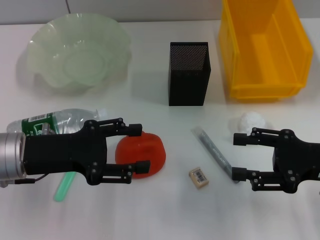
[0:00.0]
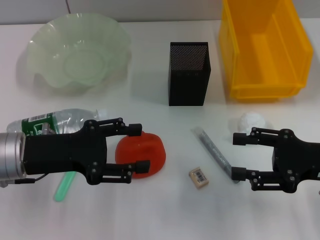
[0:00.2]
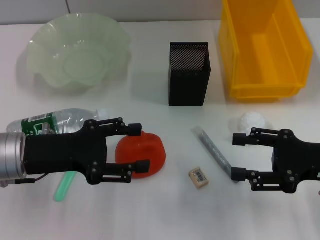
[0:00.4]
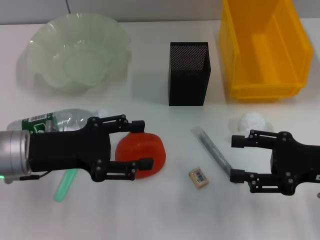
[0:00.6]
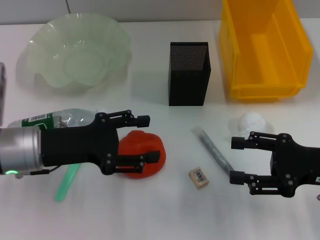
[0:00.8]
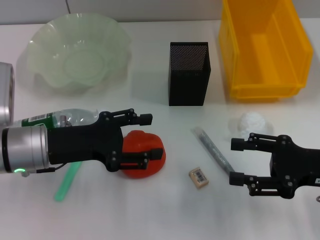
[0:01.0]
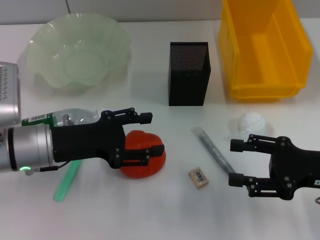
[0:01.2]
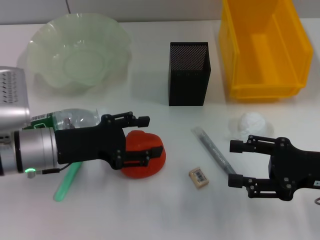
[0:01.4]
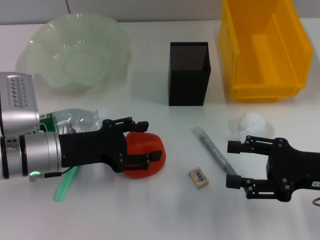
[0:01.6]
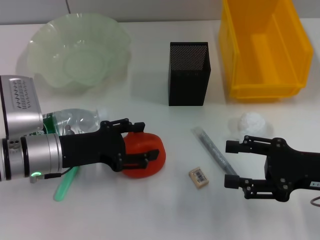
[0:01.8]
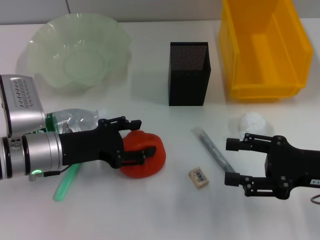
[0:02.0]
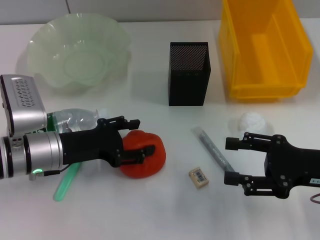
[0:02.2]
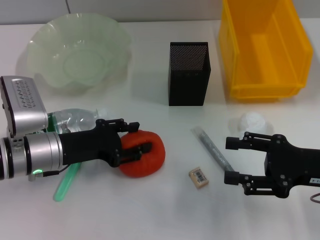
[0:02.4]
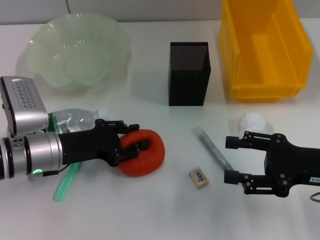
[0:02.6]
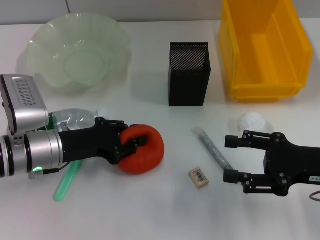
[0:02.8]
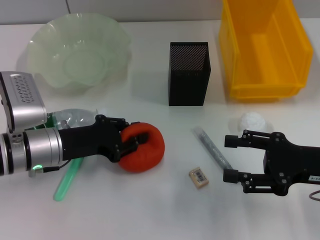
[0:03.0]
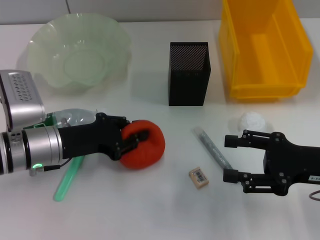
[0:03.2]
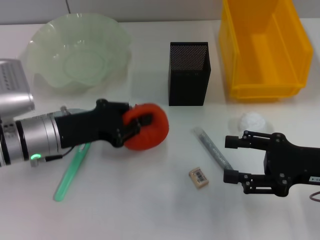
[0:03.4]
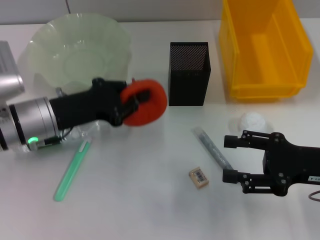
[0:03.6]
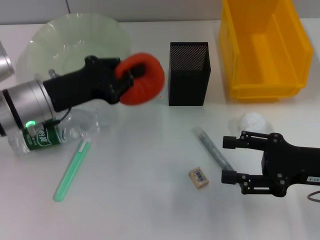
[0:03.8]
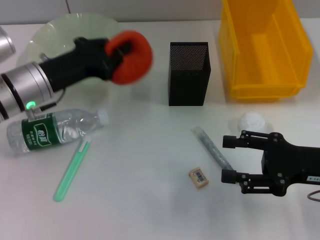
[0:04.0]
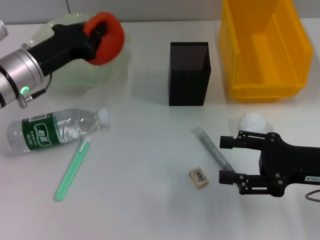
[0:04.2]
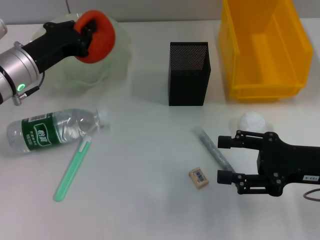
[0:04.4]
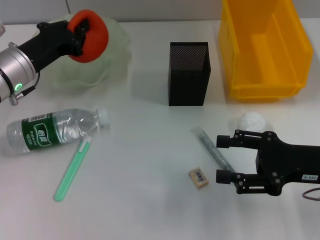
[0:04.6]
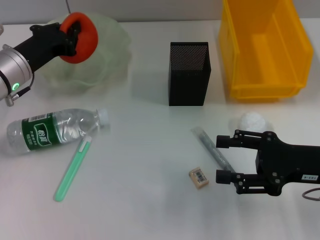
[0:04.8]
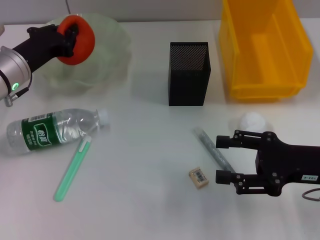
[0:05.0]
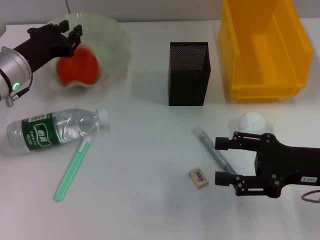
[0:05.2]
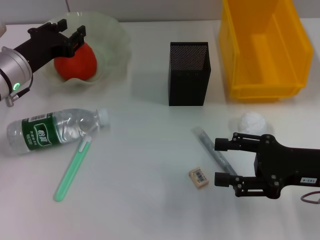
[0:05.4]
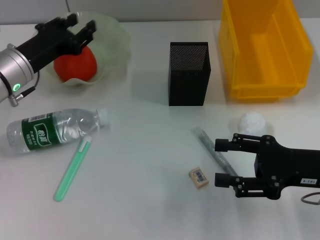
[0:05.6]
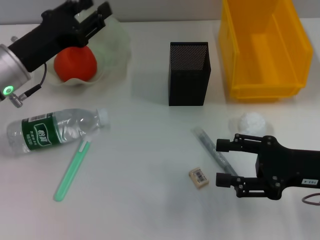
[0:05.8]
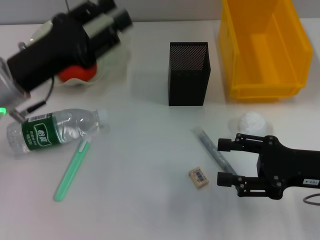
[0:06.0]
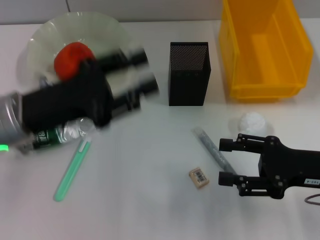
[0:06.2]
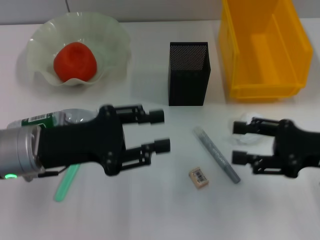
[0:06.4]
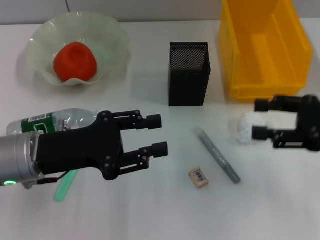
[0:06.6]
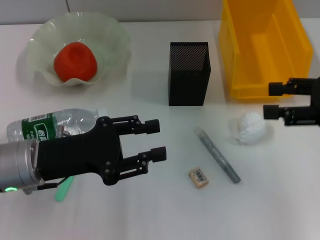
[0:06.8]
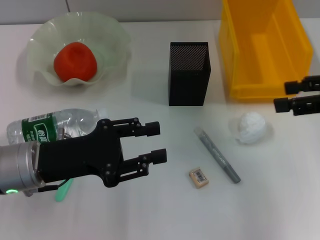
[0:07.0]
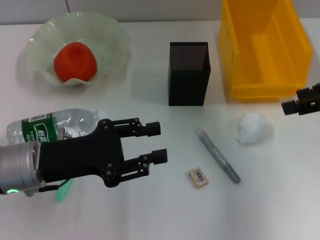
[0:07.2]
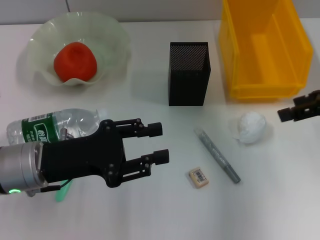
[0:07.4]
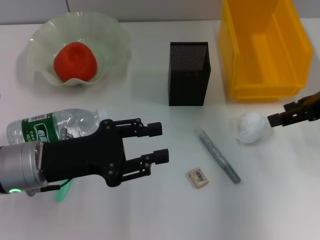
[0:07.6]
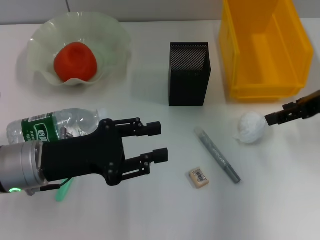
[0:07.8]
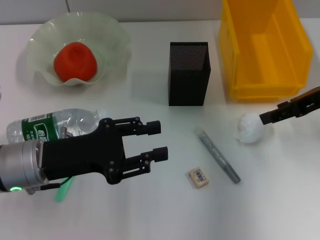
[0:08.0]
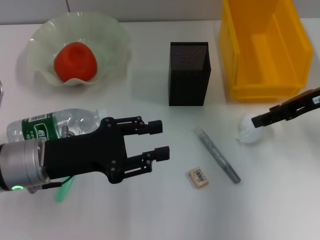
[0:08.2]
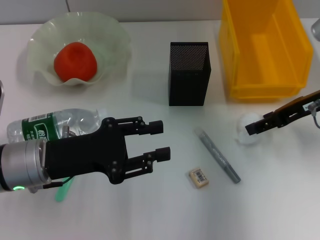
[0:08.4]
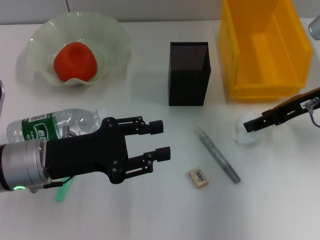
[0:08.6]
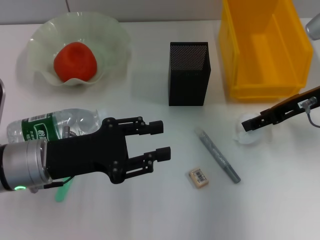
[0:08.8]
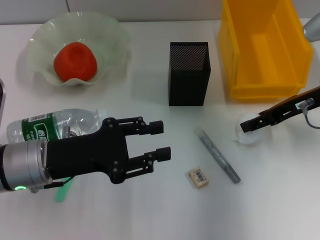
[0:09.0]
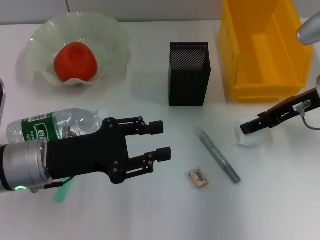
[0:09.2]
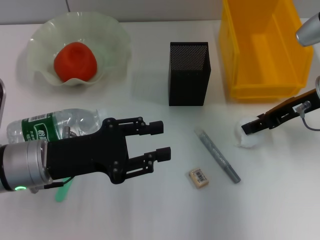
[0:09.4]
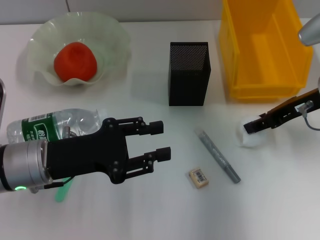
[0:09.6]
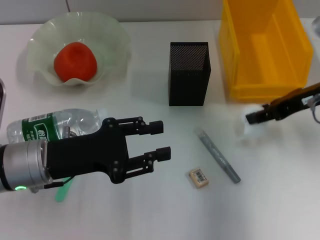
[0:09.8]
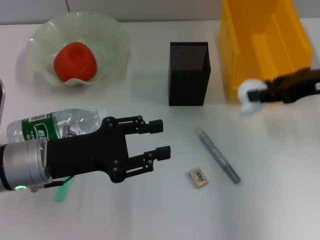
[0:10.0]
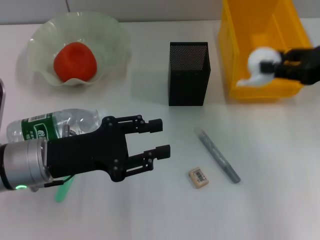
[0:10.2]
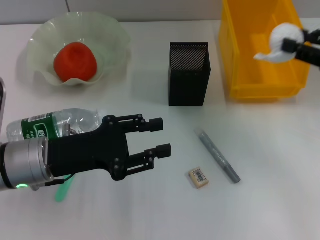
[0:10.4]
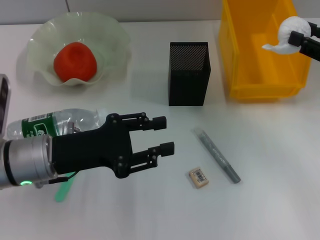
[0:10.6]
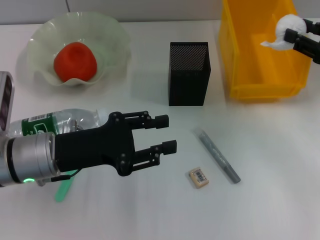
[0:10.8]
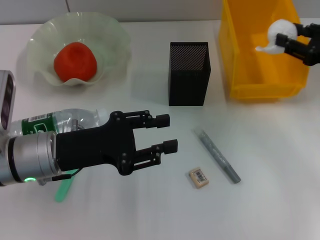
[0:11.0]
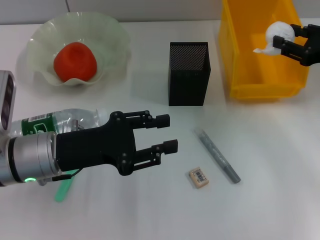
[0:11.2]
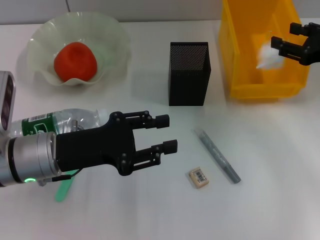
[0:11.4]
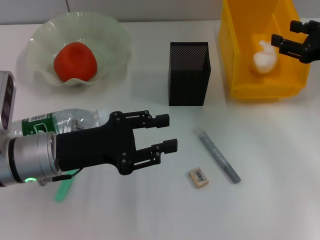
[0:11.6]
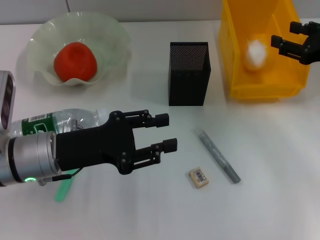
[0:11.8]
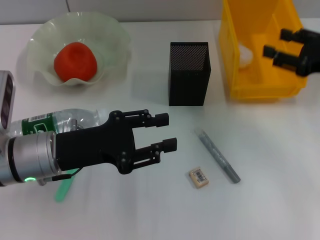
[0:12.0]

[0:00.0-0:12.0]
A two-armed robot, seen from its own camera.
Step, 0:00.0 to 0:02.8: Grab the orange with the left hand.
Step, 0:03.0 to 0:05.4: Place the orange into the fruit bowl with the left hand.
Step, 0:05.6 to 0:09.2: Grab the paper ball with the right hand.
0:00.0 to 0:01.6: The left gripper ends up approximately 5 cm from where it was.
0:01.6 to 0:03.0: The left gripper closes.
0:03.0 to 0:04.4: The left gripper travels forward and upward by some 10 cm.
0:04.4 to 0:06.0: The left gripper goes about 5 cm backward, and opens its fingers.
0:06.0 to 0:07.6: The right gripper travels upward and forward by roughly 15 cm. Meanwhile the left gripper travels backward by approximately 5 cm.
0:07.6 to 0:09.0: The right gripper shifts by about 5 cm.
0:09.0 to 0:10.4: The right gripper moves to the right and backward, about 10 cm, and closes.
0:10.4 to 0:12.0: The grippers move only a little.

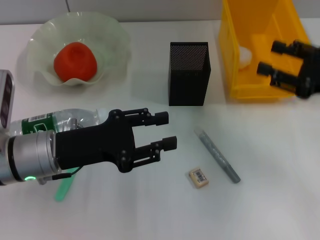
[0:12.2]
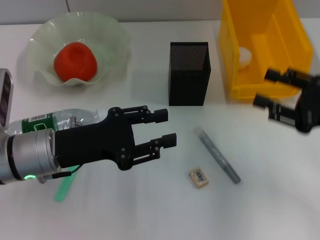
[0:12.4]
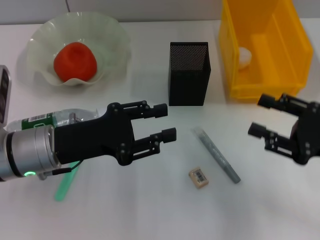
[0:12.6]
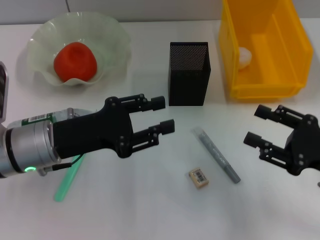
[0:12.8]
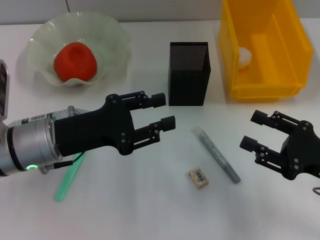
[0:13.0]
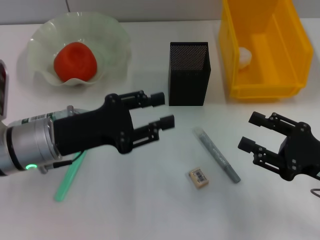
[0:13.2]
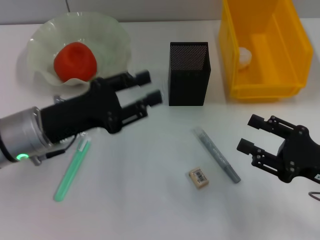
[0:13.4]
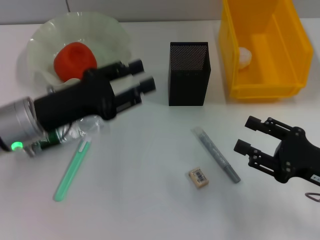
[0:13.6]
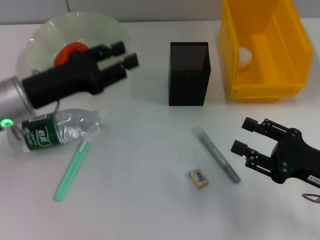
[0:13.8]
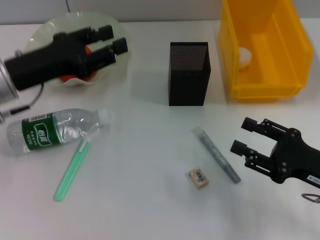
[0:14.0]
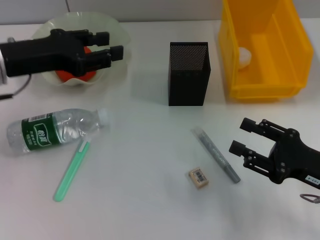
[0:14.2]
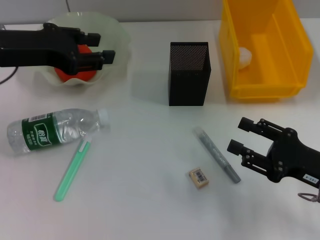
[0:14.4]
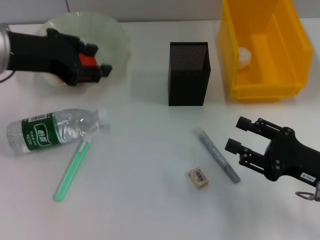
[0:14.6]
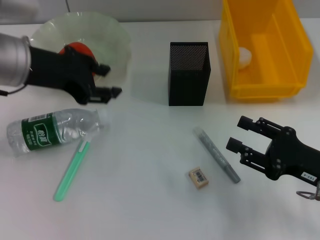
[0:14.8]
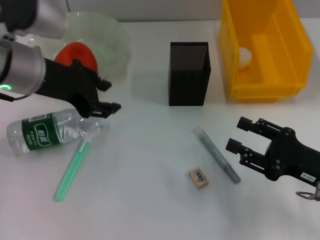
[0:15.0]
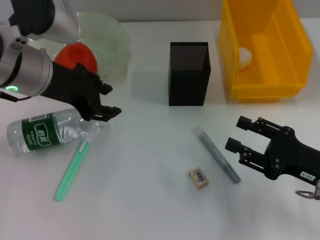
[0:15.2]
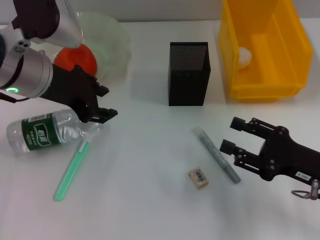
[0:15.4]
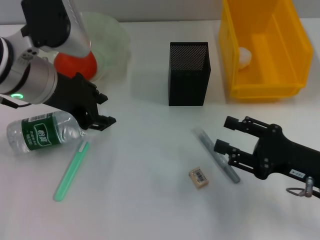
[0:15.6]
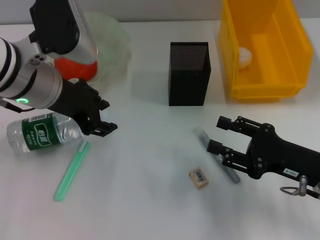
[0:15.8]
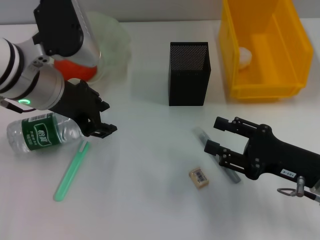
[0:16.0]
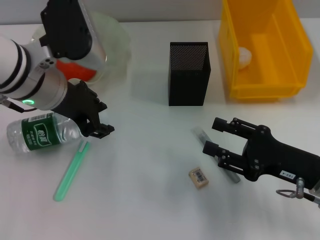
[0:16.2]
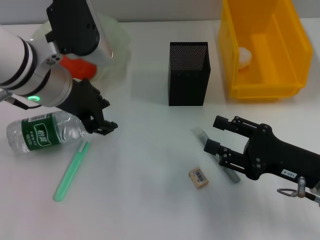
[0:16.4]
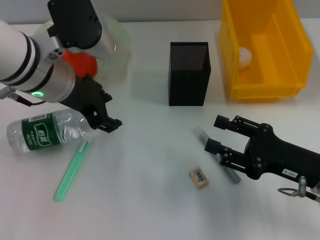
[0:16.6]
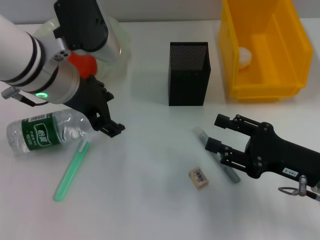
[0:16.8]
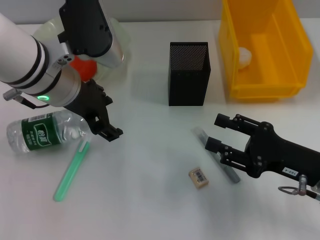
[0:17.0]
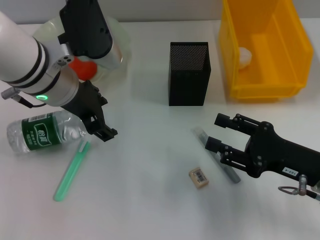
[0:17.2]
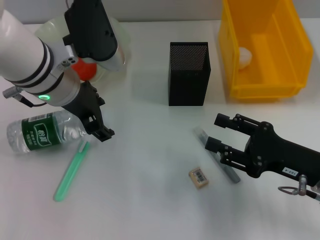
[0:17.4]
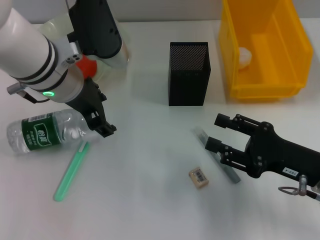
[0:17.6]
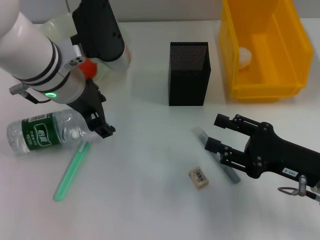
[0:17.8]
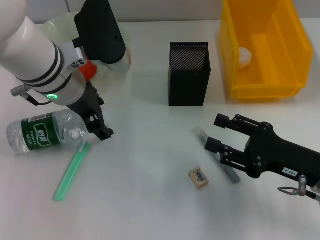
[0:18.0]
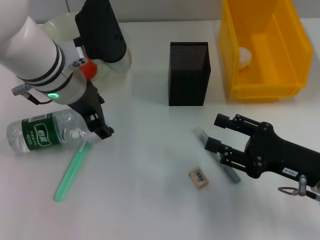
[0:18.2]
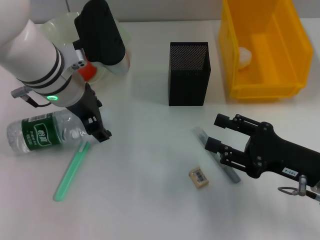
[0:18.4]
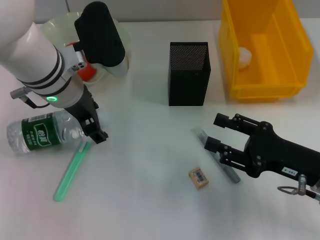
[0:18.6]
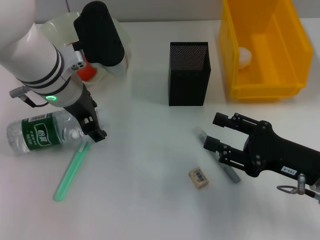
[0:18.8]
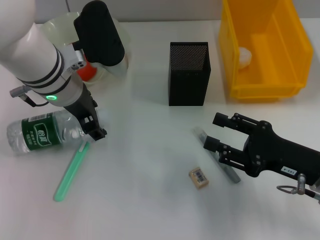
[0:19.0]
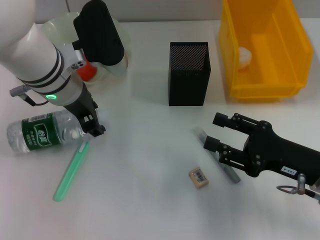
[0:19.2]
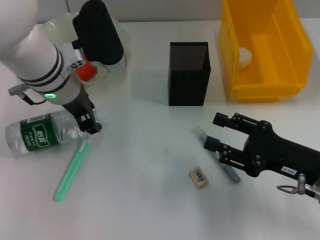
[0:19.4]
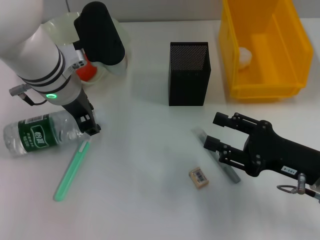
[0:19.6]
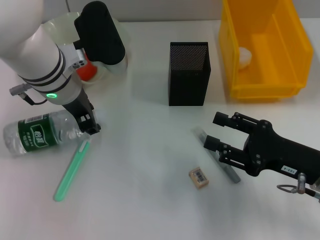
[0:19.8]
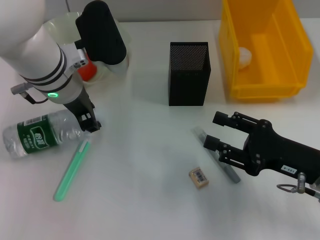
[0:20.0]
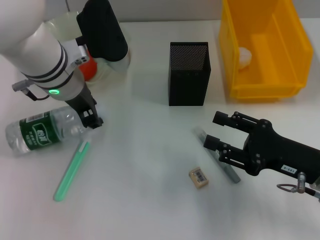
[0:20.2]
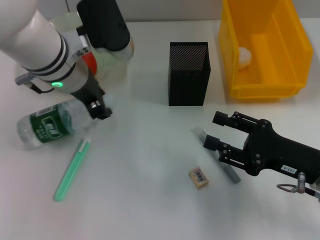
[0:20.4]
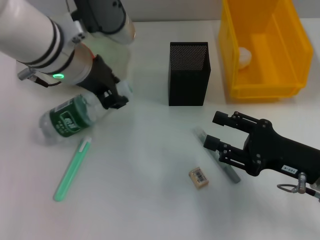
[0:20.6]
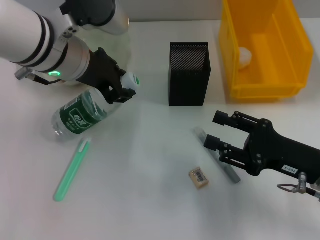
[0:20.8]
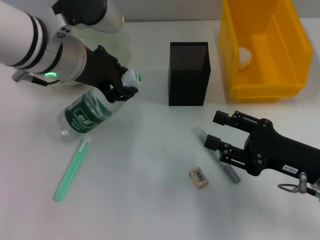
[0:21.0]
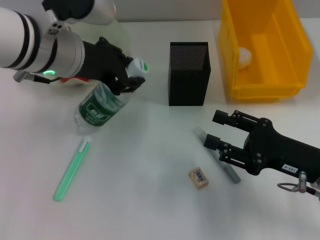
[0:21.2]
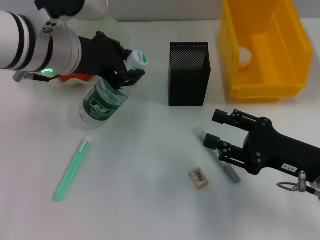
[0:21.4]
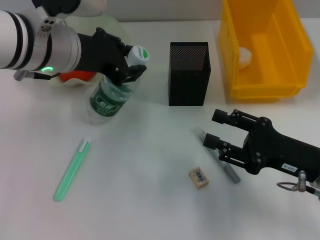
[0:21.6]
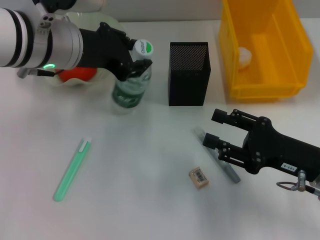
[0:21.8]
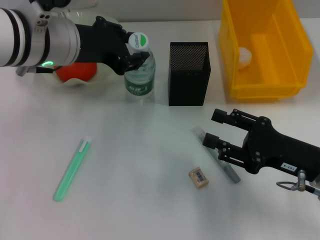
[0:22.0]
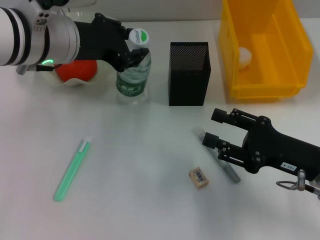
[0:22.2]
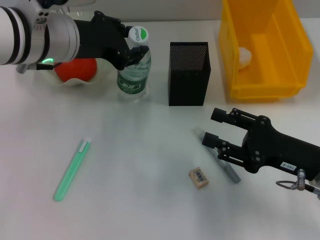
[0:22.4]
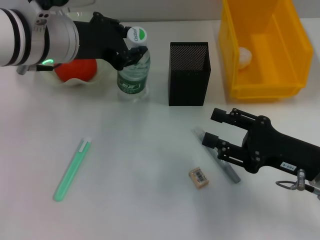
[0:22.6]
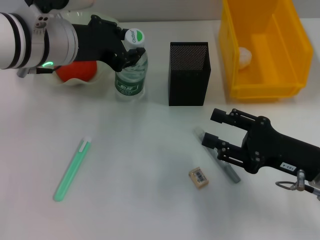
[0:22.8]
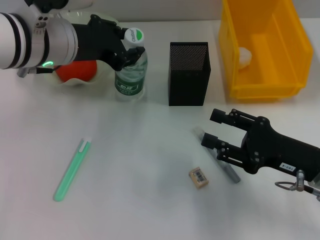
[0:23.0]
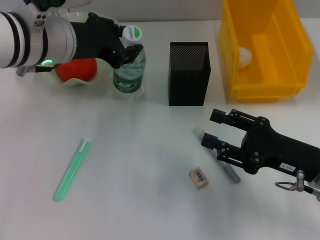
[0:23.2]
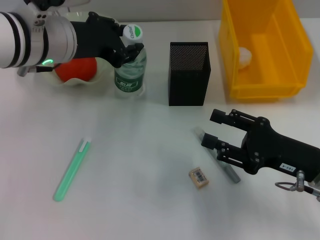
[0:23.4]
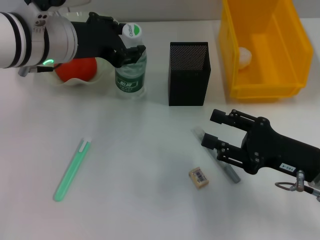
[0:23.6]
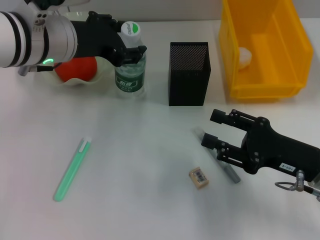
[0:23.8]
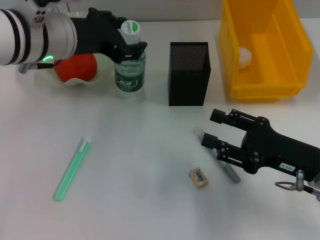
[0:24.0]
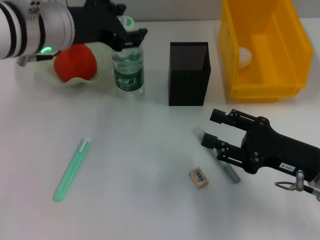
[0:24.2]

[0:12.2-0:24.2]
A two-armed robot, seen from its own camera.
Step, 0:12.4 to 0:19.8: Grab the water bottle with the left hand.
Step, 0:20.0 to 0:24.2: Place the water bottle on the table with the left hand.
0:12.2 to 0:13.8: The right gripper goes about 10 cm backward and downward; the left gripper ends up some 5 cm from where it was.
0:13.8 to 0:15.2: The left gripper travels upward and to the right by some 10 cm.
0:15.2 to 0:18.2: The grippers move only a little.
0:18.2 to 0:19.8: The left gripper closes.
0:19.8 to 0:21.2: The left gripper travels upward by some 5 cm.
0:21.2 to 0:22.6: The grippers make only small movements.
0:22.6 to 0:24.2: The grippers make only small movements.
